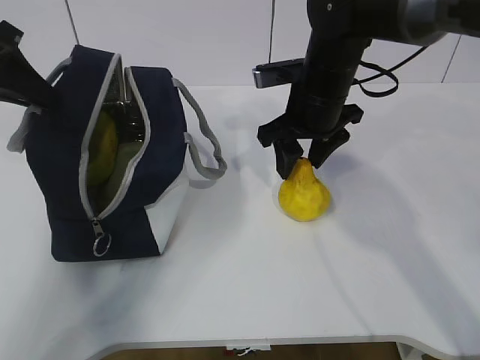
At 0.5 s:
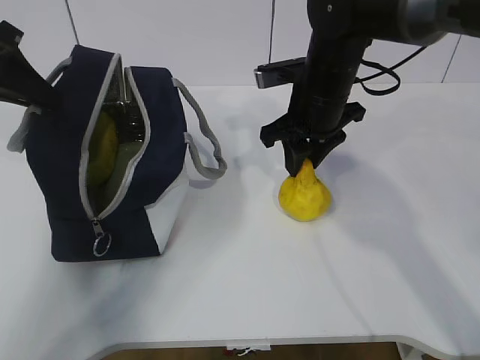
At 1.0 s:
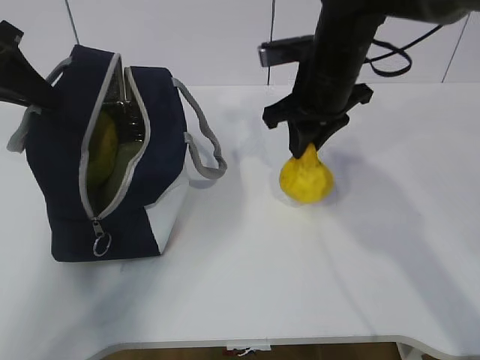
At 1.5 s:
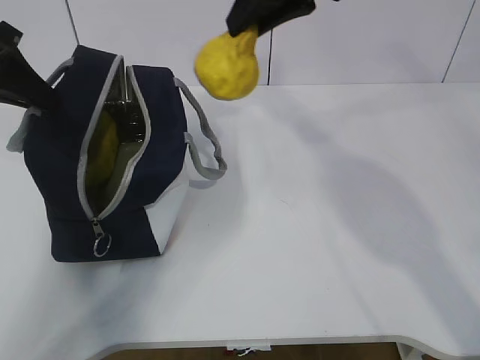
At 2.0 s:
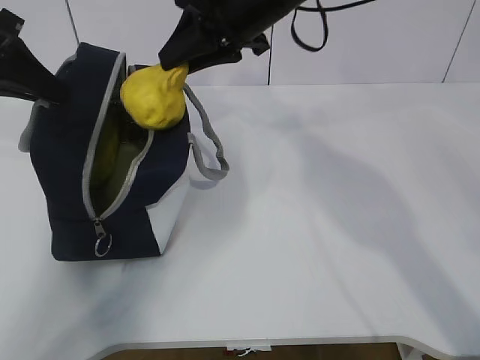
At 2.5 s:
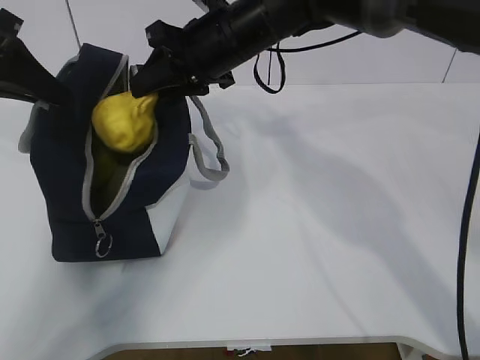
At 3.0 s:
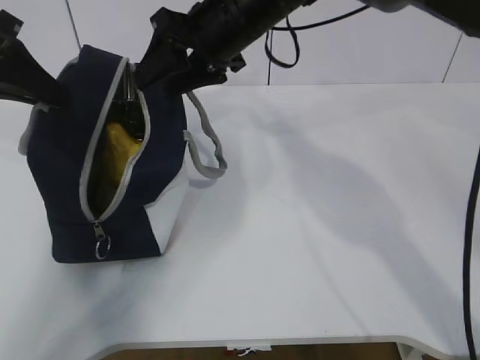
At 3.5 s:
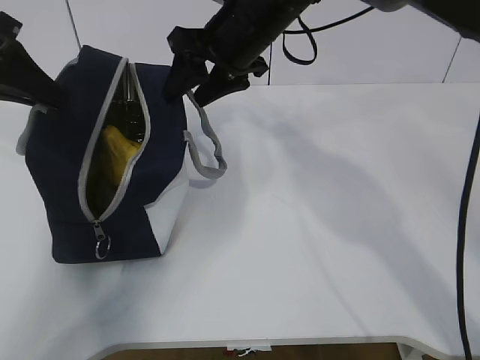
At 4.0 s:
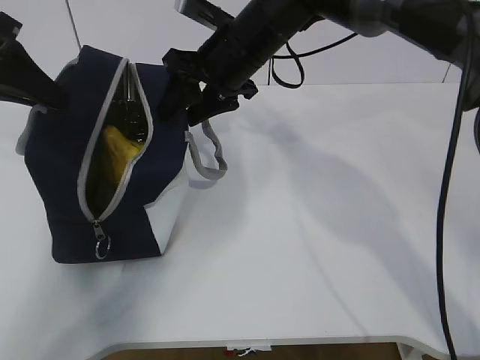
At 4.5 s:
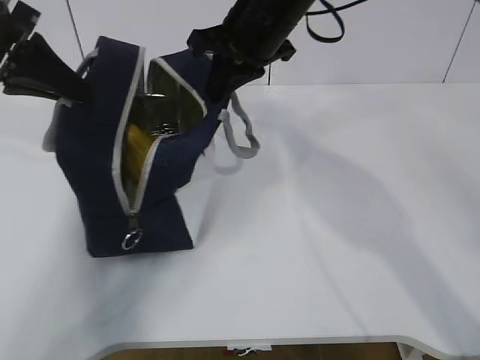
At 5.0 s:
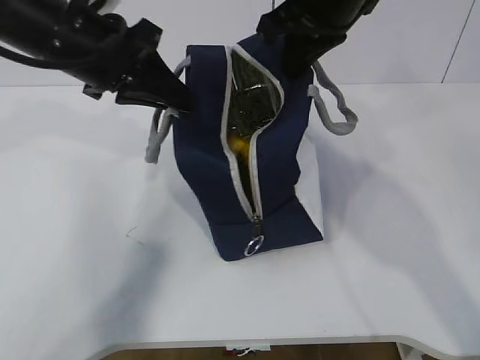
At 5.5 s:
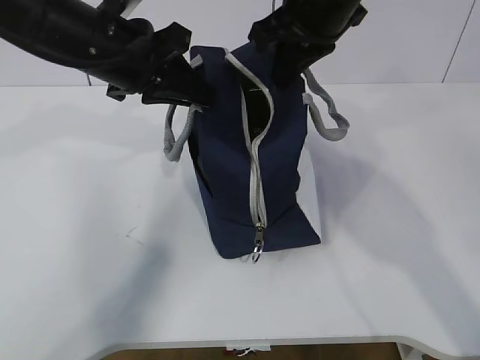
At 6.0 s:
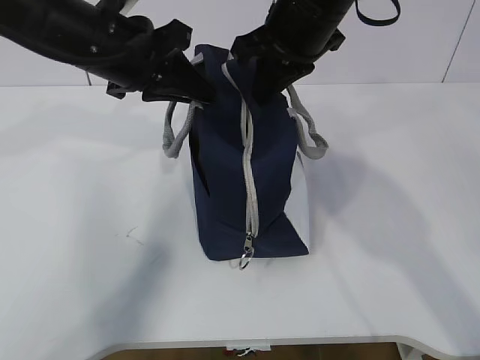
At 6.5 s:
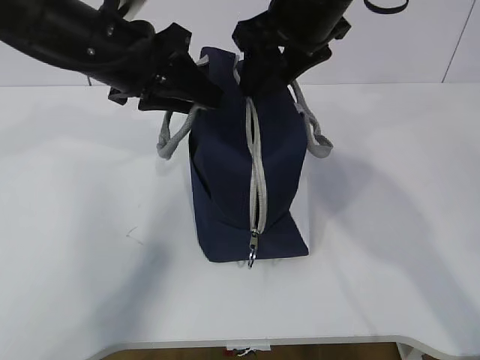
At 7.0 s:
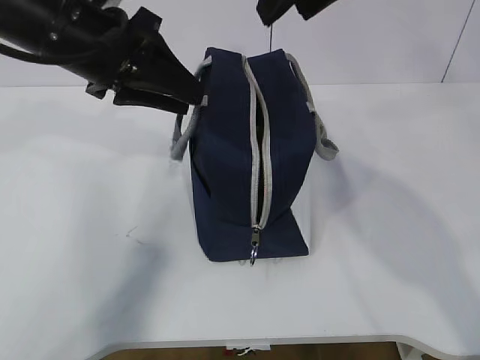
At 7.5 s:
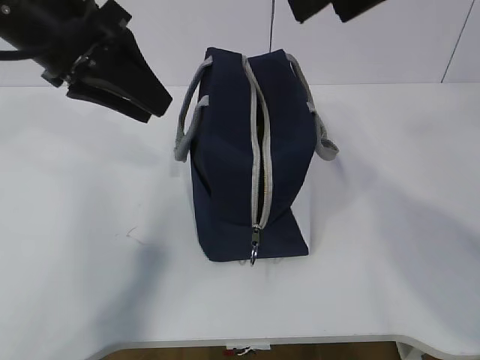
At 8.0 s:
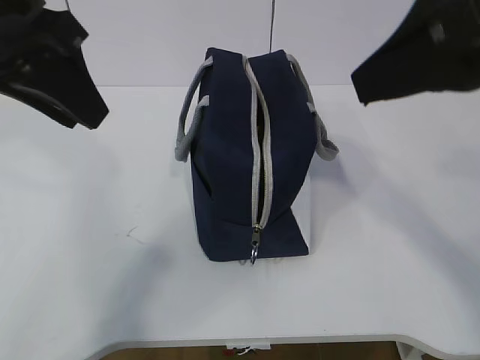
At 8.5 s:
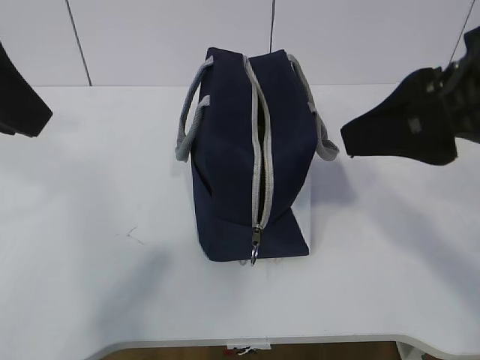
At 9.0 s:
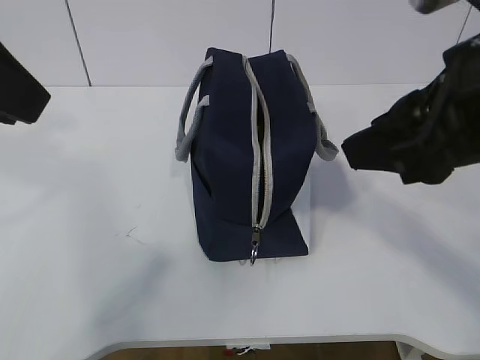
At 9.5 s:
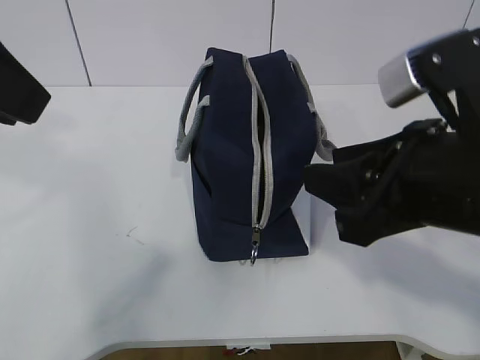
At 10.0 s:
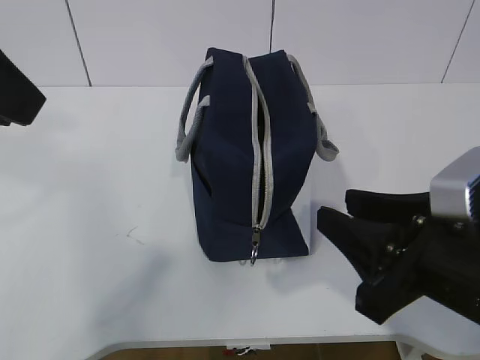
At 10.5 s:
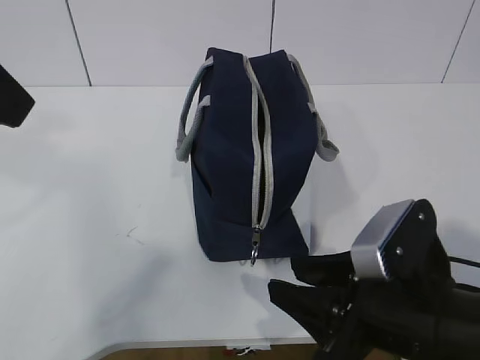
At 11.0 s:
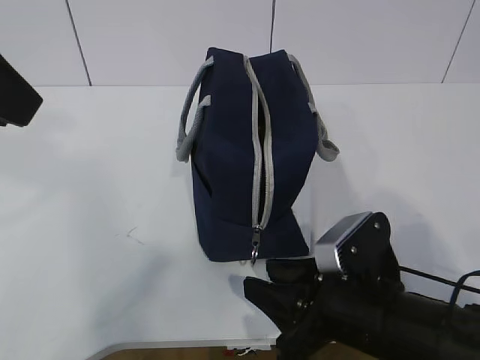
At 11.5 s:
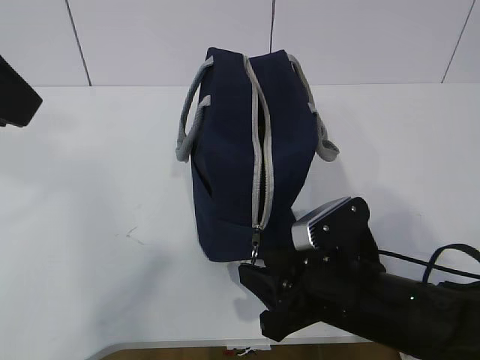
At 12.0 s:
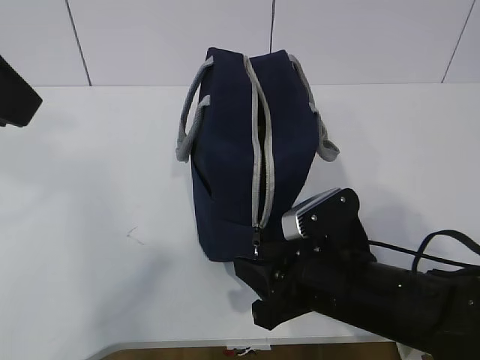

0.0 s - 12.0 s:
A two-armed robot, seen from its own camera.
Step, 1.0 s - 10.5 s: Grab the lunch bag with your left hand.
0.0 s - 2.0 s: The right gripper shifts about 15 cm upward and to the left, and closes.
2.0 s - 4.0 s: The right gripper shifts roughly 5 cm downward, and opens its fingers.
4.0 s - 6.0 s: The left gripper is displaced to the right by about 15 cm, while the right gripper shifts some 10 cm upward and to the right, and closes up.
6.0 s - 8.0 s: The left gripper heads backward and upward, covering roughly 10 cm, and opens its fingers. The right gripper goes approximately 20 cm backward and to the right, and opens its fingers.
8.0 s - 10.0 s: The left gripper shifts some 5 cm backward, while the right gripper moves downward, some 20 cm.
10.0 s - 12.0 s: The right gripper moves downward, to the left and forward, approximately 10 cm.

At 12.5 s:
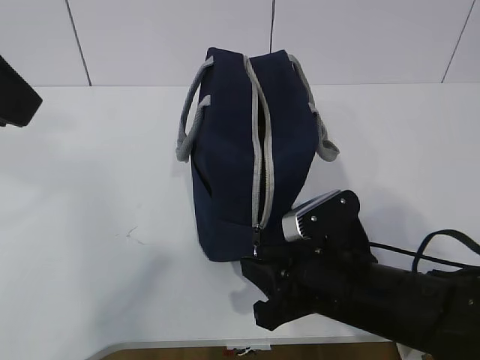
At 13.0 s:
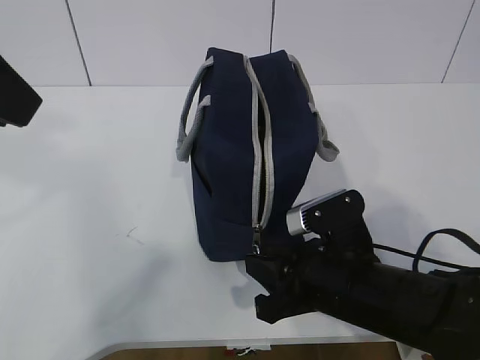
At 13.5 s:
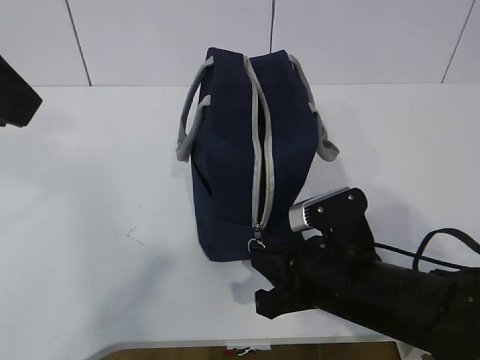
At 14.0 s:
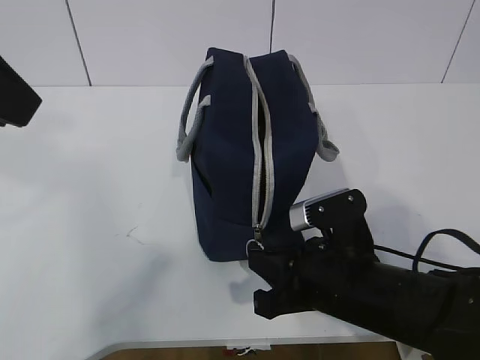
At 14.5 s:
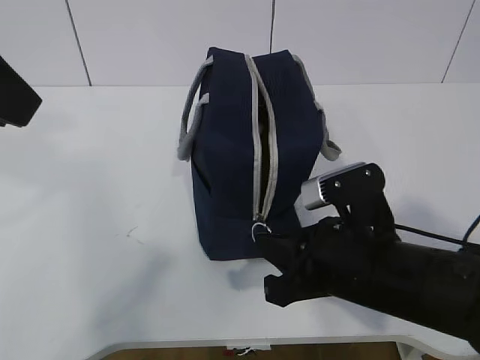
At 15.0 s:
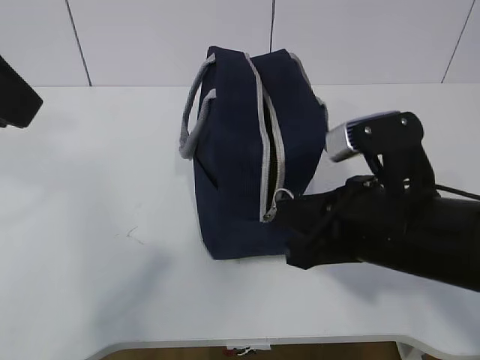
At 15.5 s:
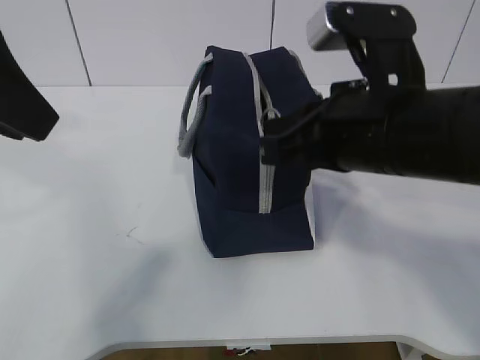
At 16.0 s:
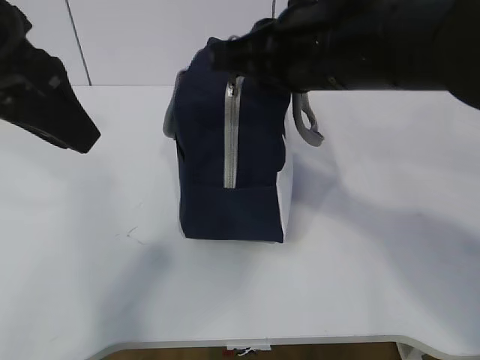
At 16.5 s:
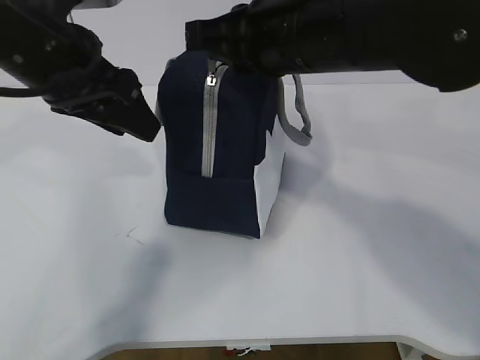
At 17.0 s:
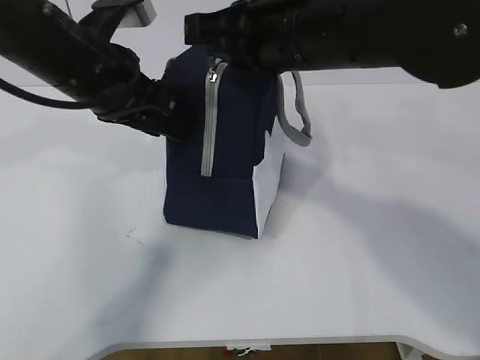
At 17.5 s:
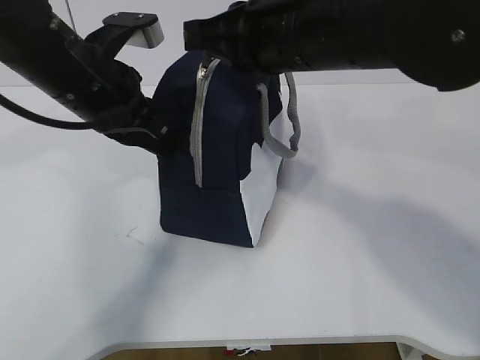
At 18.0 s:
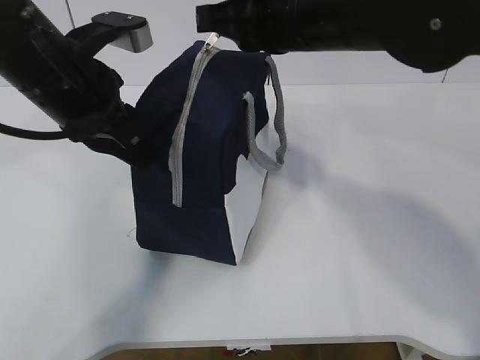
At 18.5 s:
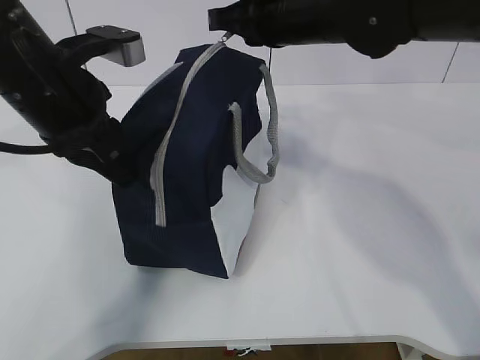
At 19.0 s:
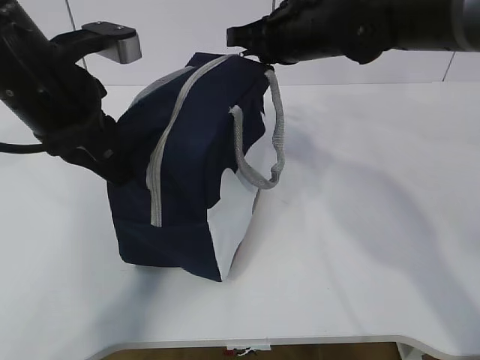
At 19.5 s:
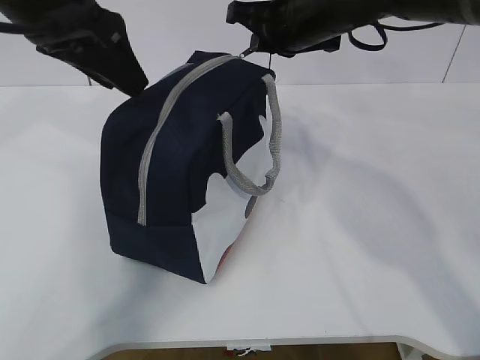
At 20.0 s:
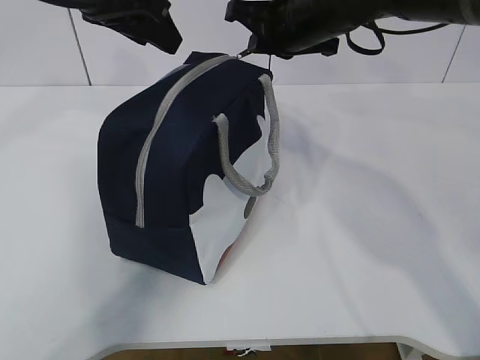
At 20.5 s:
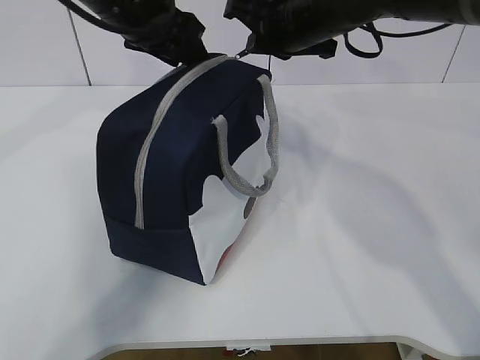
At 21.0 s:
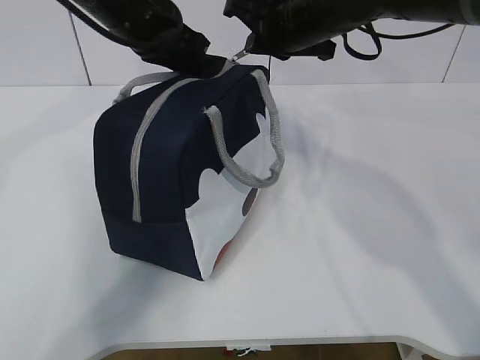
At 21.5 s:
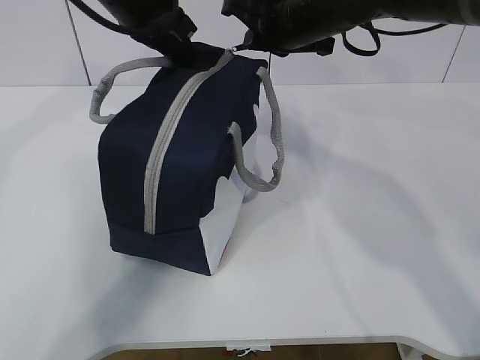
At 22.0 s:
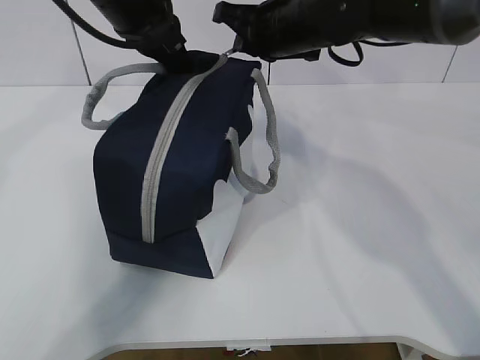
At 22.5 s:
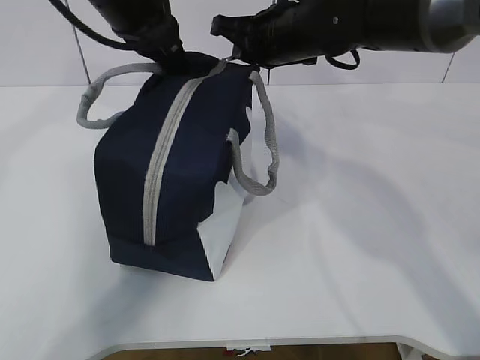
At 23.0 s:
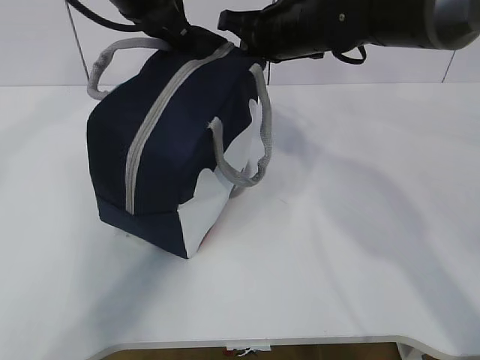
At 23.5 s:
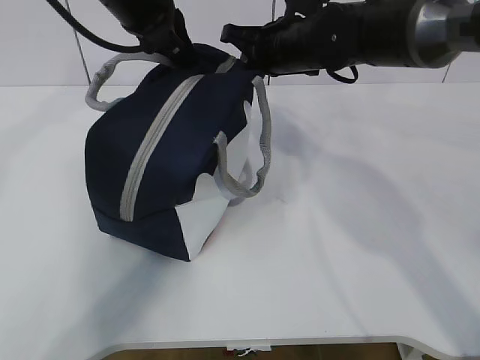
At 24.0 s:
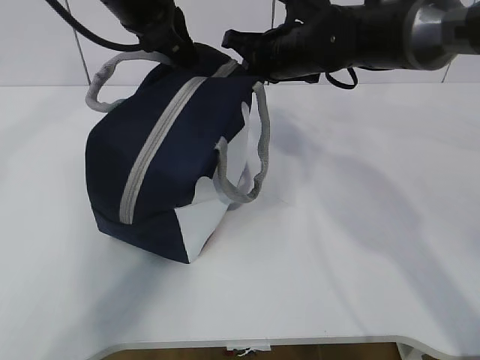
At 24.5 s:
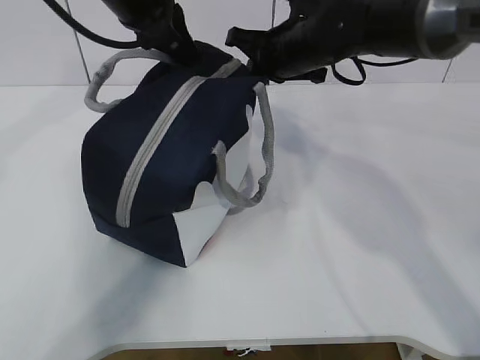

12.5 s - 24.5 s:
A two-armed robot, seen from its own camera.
Step, 12.5 s - 16.5 s: Pull the zipper with your right hand.
12.5 s - 14.5 s: The right gripper closes up.
14.5 s - 16.5 s: The left gripper goes roughly 15 cm forward and downward. Meanwhile the right gripper goes about 20 cm upward and forward.
16.5 s - 18.5 s: The right gripper moves forward, some 10 cm. Meanwhile the left gripper closes.
18.5 s - 20.5 s: The left gripper moves forward, about 10 cm, and opens.
20.5 s - 22.5 s: The left gripper closes up.
22.5 s - 24.5 s: The grippers make only small movements.

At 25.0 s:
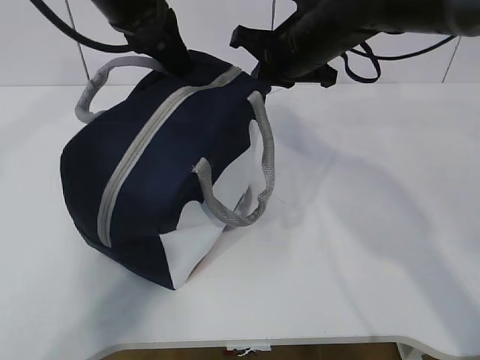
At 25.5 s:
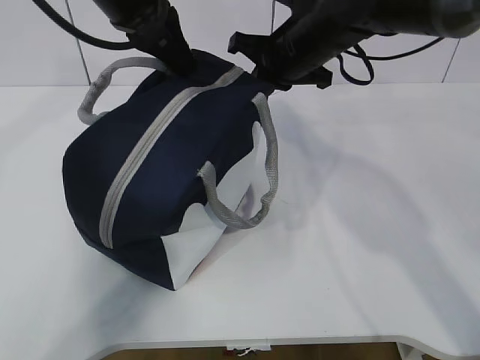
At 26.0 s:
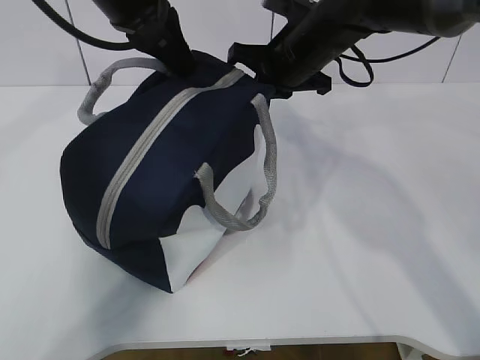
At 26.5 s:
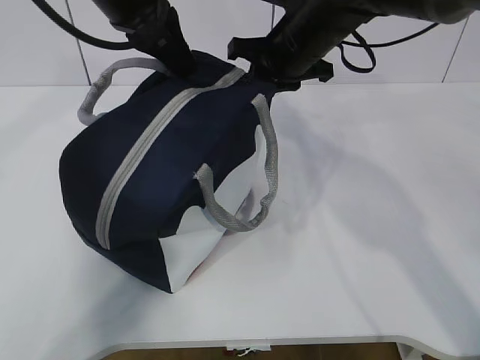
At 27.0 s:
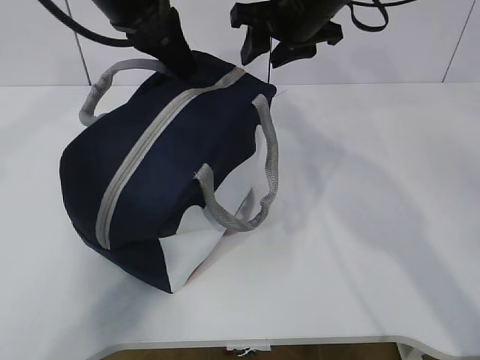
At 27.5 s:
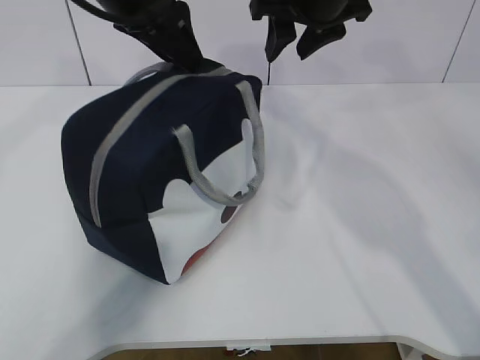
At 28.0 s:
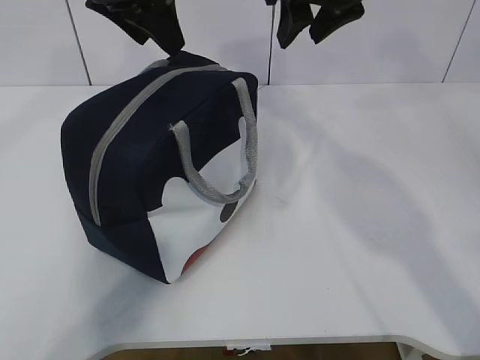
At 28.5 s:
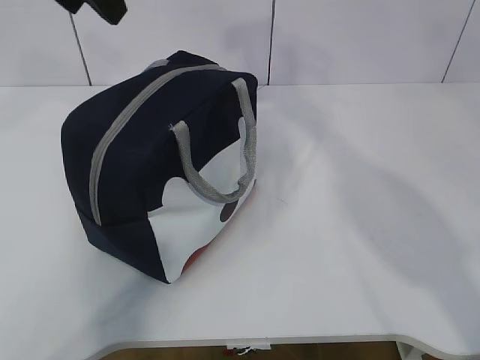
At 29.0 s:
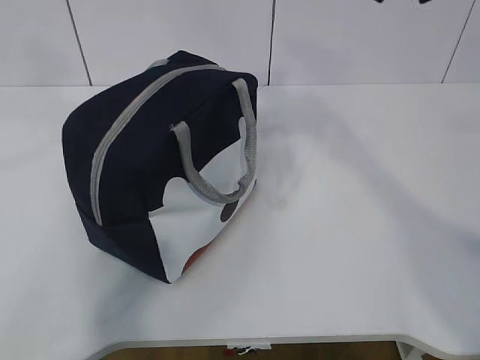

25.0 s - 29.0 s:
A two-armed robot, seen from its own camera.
25.0 s - 27.0 s: The right gripper opens up.
27.0 s - 29.0 s: The left gripper is displaced backward, upward and to the left by some 20 cm, and opens. The right gripper moves backward and upward, roughly 25 cm.
